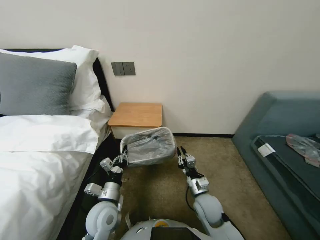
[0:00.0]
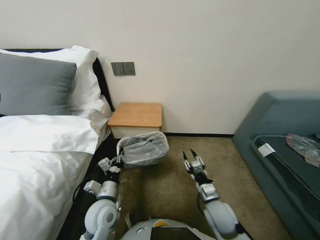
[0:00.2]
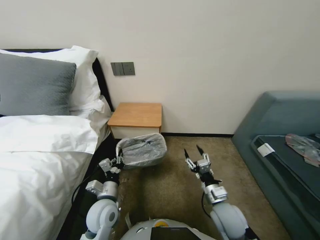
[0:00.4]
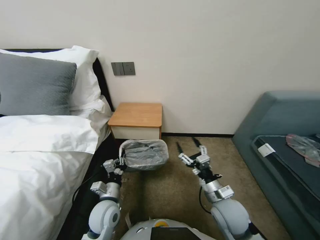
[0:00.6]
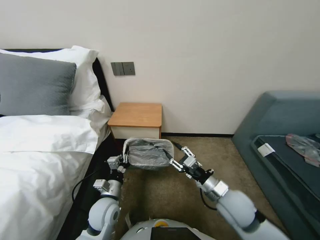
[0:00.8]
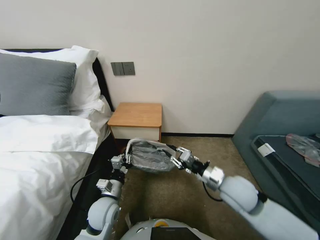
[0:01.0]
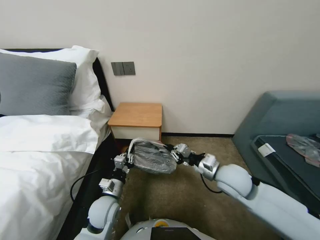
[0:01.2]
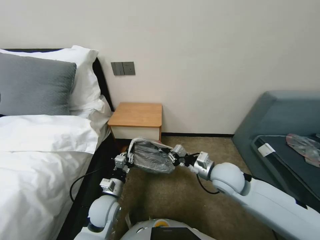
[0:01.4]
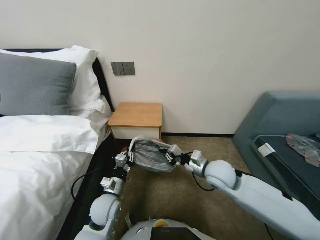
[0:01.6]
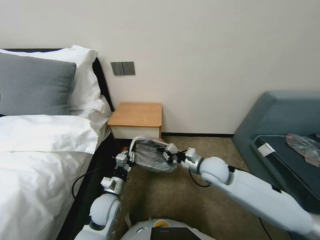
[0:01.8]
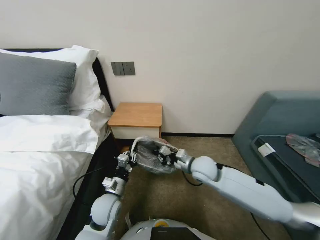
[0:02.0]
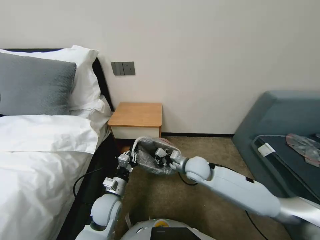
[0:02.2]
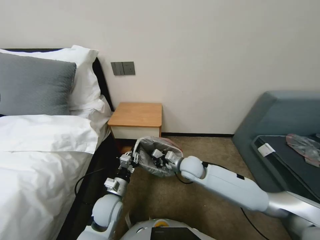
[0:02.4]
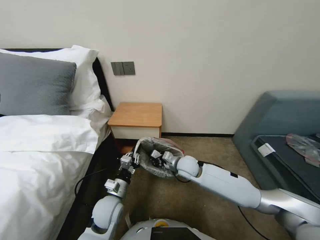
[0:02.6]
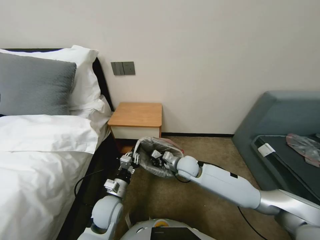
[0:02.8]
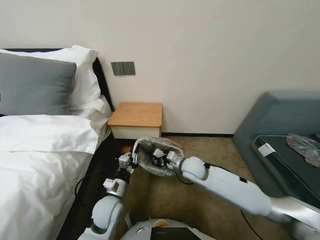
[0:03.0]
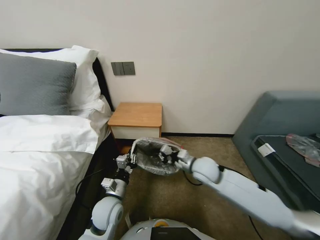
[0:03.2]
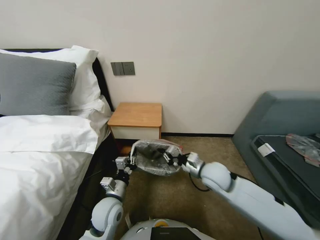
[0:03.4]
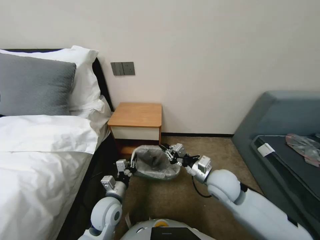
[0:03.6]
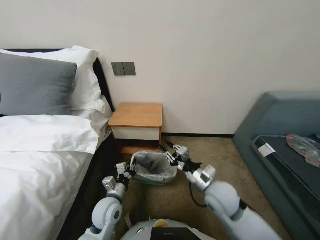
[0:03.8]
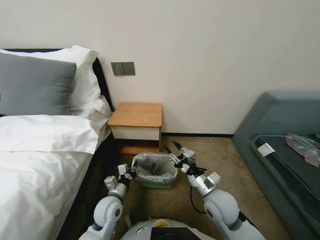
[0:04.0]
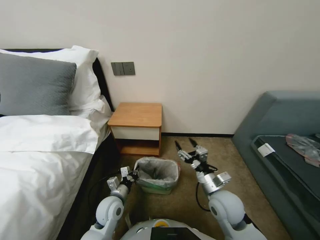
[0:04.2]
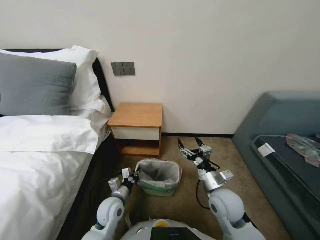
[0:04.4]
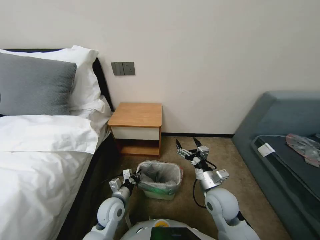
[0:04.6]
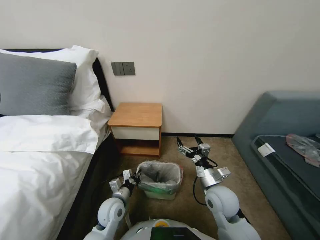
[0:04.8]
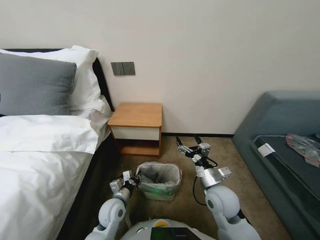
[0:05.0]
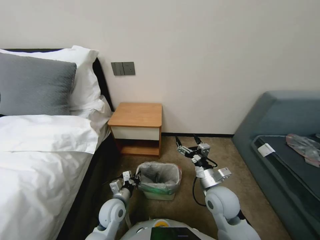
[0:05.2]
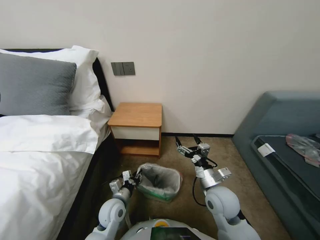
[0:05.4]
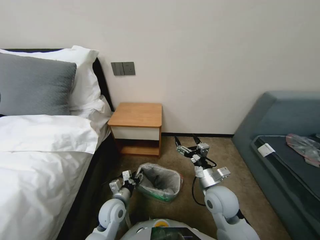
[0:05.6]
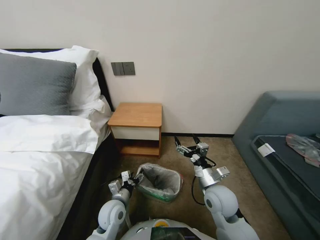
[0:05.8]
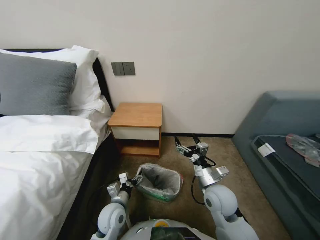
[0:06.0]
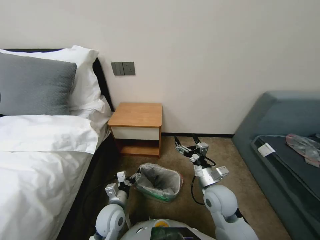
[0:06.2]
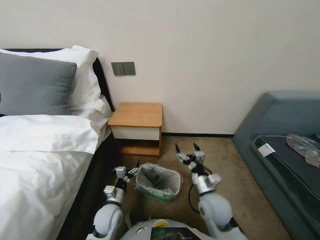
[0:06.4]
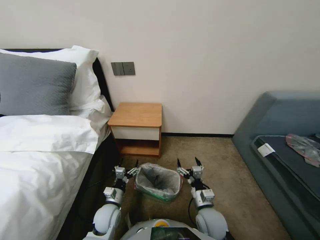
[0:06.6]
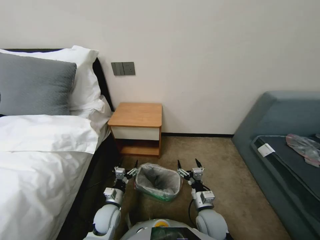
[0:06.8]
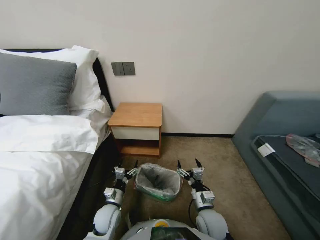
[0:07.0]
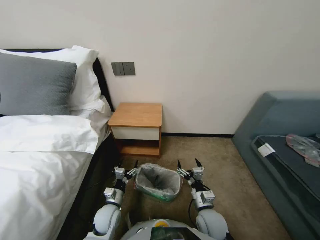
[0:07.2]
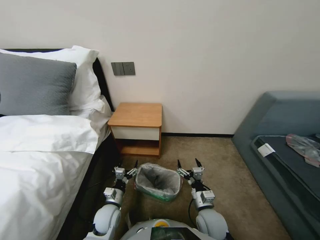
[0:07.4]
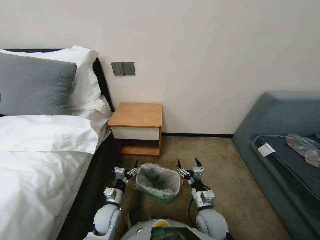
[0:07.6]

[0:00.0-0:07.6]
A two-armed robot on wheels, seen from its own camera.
Task of the whole recording: Pick up the garbage bag from the table and place it over the trash can.
0:00.0 to 0:01.6: The right gripper goes some 15 cm upward, and opens, then closes again.
0:01.6 to 0:03.0: The right gripper shifts some 15 cm to the left, downward and forward.
0:03.0 to 0:04.6: The right gripper is displaced backward and to the right by about 15 cm, and opens its fingers.
0:04.6 to 0:06.0: The left gripper opens its fingers.
0:06.0 to 0:07.6: The right gripper travels downward and backward by approximately 10 cm; the left gripper ends up approximately 5 cm from where it was.

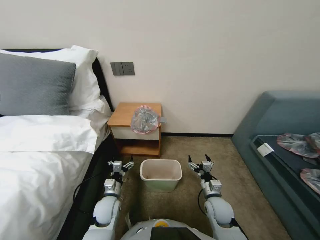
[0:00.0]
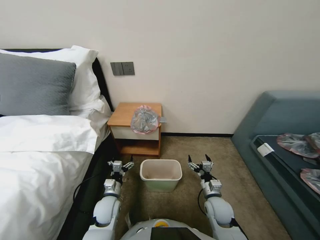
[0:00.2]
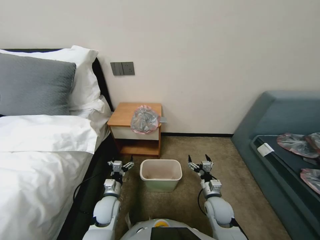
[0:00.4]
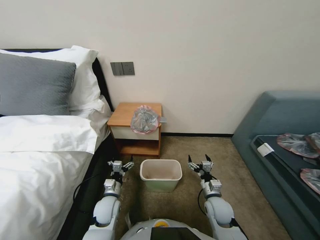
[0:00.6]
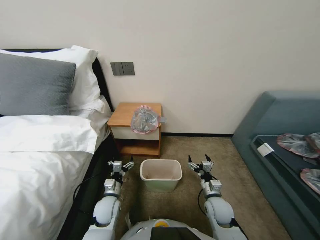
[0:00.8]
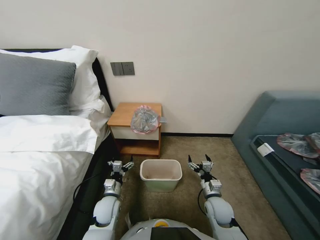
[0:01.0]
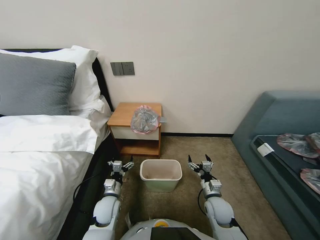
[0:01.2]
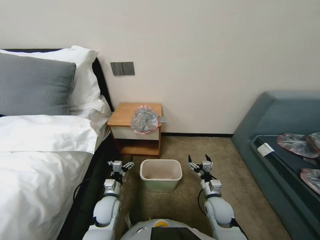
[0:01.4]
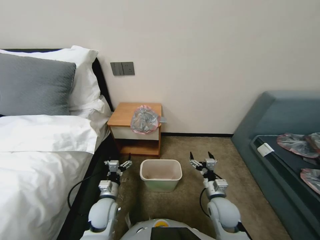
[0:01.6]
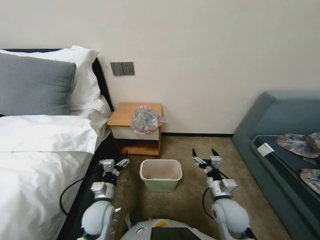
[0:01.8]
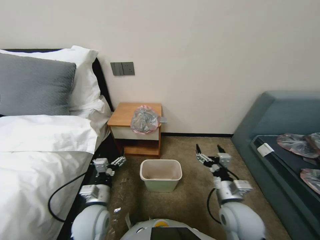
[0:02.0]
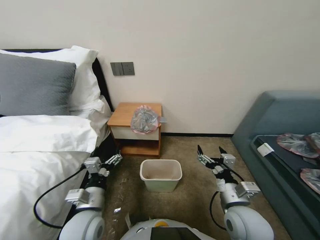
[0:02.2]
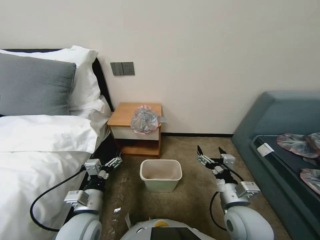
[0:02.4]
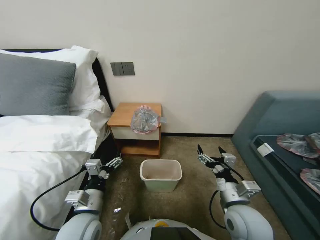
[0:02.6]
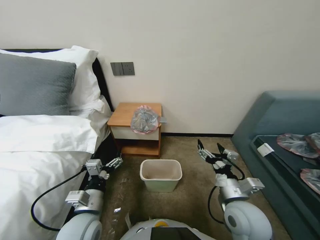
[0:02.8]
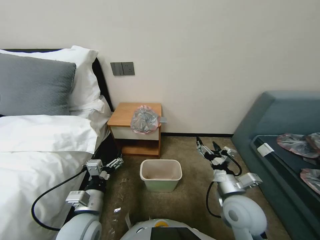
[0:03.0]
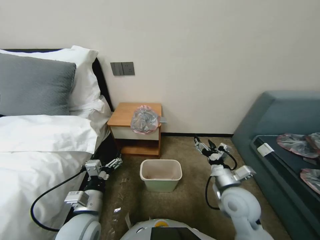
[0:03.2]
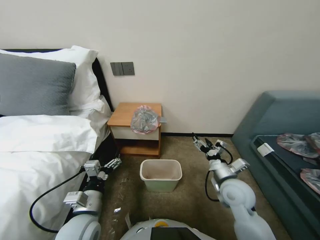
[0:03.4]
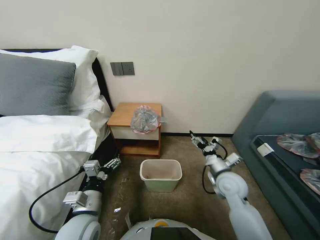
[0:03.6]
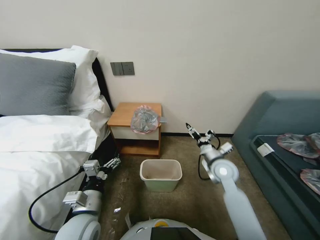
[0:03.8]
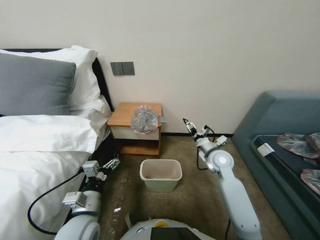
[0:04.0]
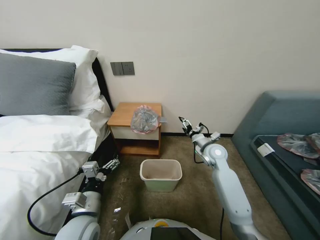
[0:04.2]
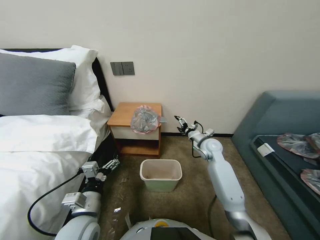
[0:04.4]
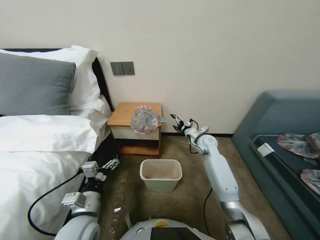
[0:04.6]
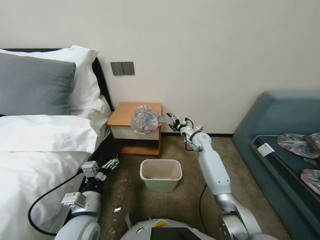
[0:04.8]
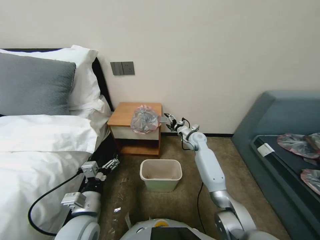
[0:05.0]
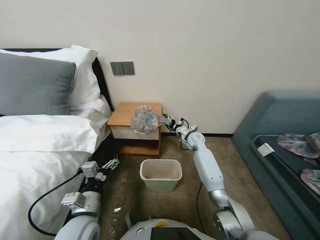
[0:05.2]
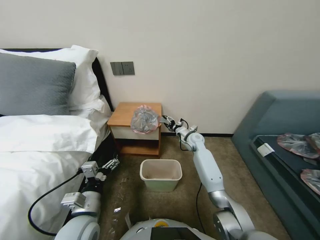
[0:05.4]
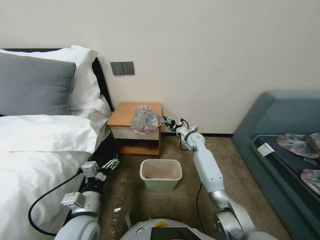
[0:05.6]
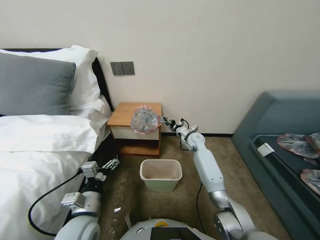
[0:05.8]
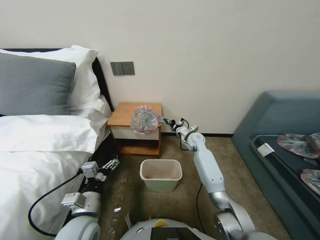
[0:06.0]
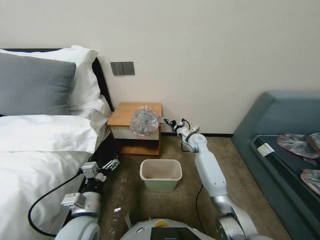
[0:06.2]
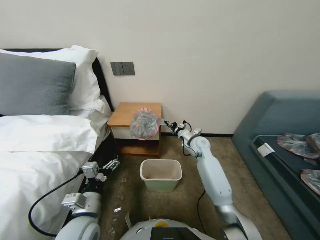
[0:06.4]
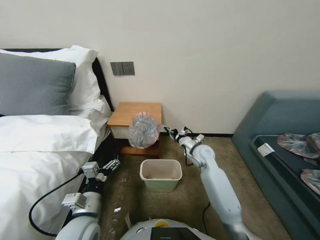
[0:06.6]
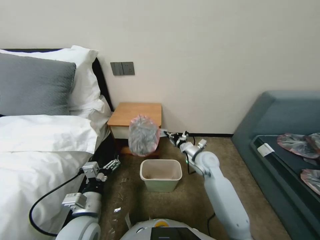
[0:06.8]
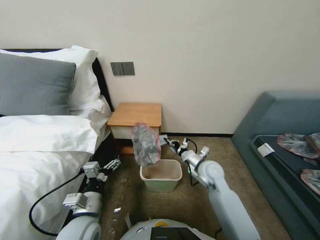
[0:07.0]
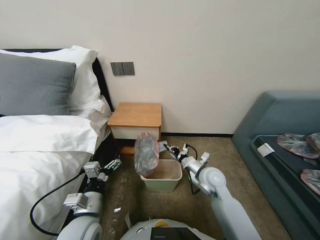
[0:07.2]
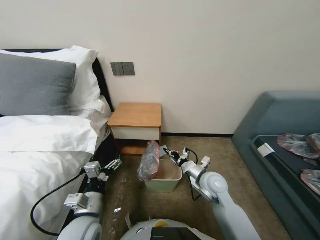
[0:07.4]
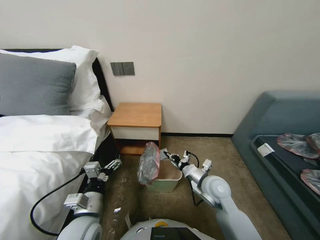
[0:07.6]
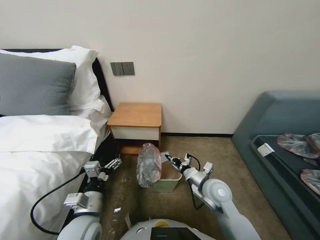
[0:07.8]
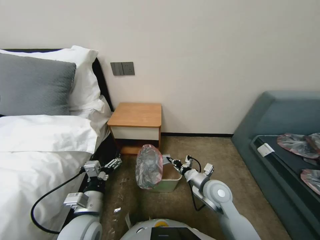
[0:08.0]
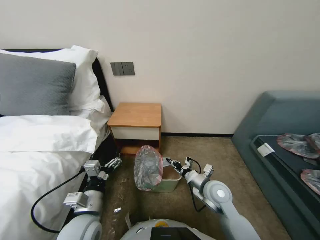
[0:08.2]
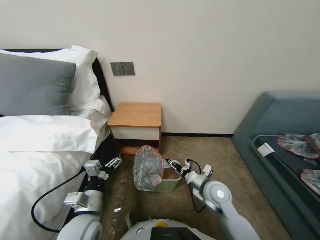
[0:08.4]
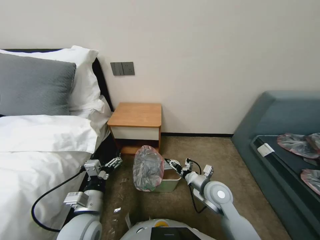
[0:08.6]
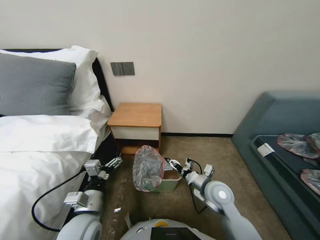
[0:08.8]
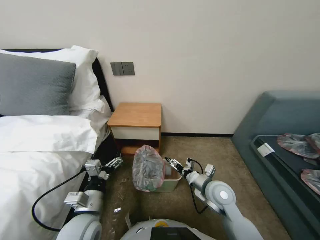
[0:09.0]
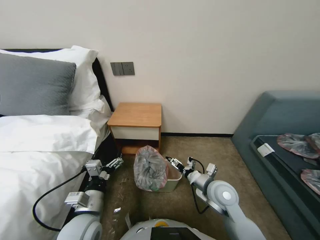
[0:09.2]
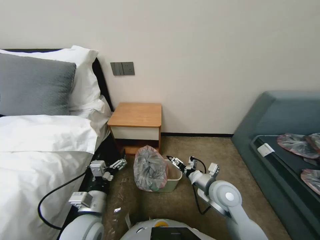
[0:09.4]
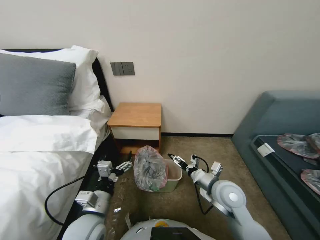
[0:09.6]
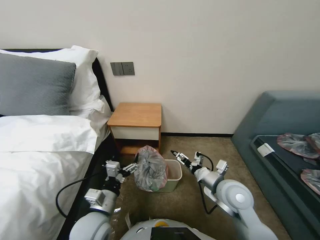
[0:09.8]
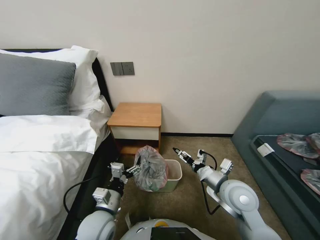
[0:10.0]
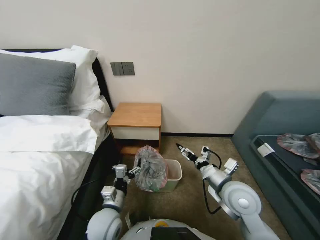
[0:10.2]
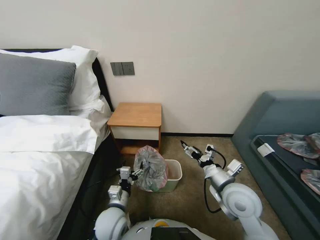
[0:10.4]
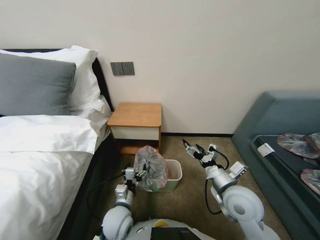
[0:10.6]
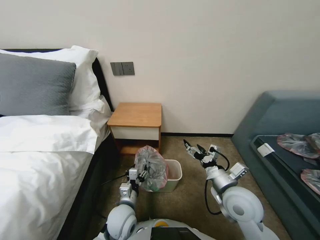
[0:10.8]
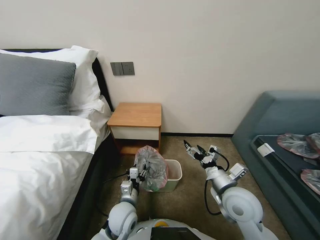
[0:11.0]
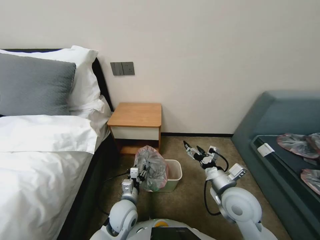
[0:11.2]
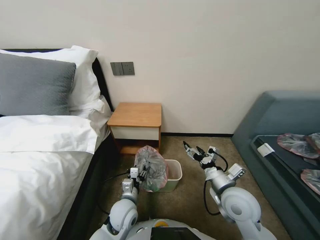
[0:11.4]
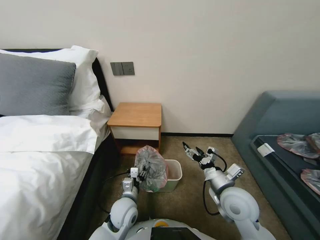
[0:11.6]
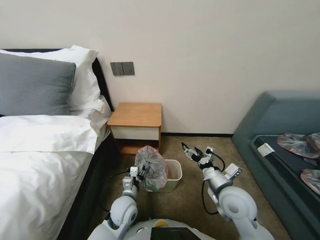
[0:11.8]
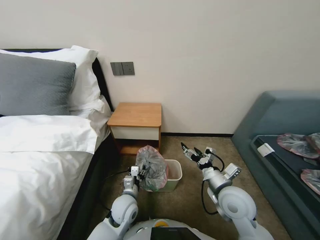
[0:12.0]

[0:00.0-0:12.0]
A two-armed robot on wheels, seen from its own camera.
Task of the whole recording: Pick up the garbage bag from the table and place it over the trash can.
0:01.6 to 0:03.0: The right gripper travels upward by about 15 cm. The left gripper is displaced upward and backward by some 15 cm.
0:03.0 to 0:04.4: The right gripper is displaced forward by approximately 25 cm.
0:04.4 to 0:06.0: The right gripper travels forward by roughly 10 cm, and closes.
0:06.0 to 0:07.6: The right gripper goes approximately 25 cm backward.
0:07.6 to 0:09.0: The right gripper opens up.
0:09.0 to 0:10.4: The left gripper moves downward, roughly 5 cm. The right gripper goes approximately 5 cm upward.
0:10.4 to 0:12.0: The left gripper shifts by approximately 5 cm, and closes up.

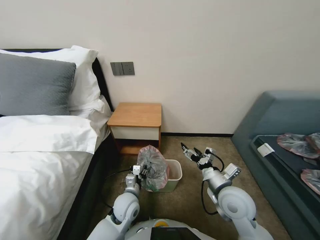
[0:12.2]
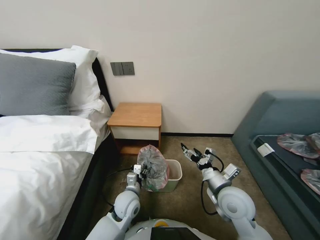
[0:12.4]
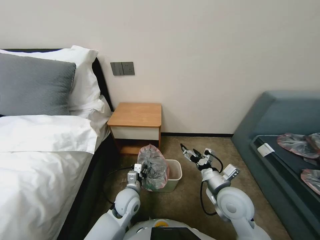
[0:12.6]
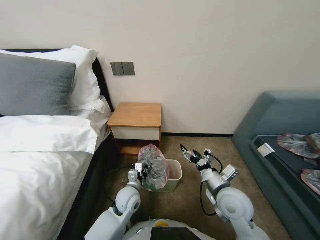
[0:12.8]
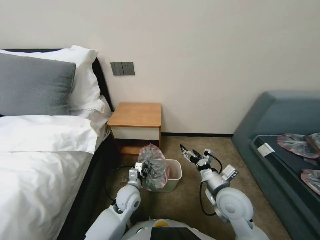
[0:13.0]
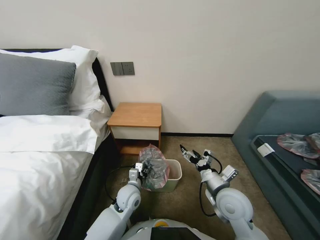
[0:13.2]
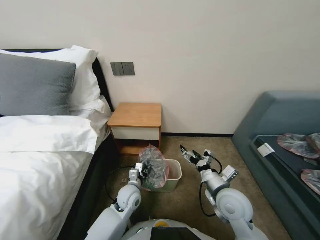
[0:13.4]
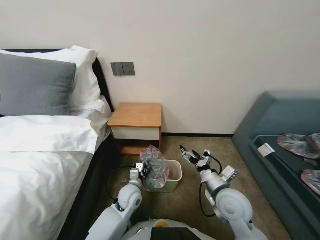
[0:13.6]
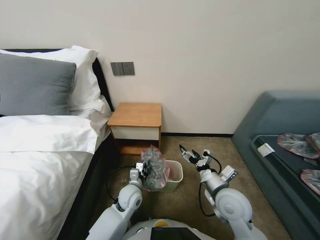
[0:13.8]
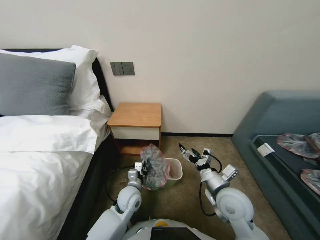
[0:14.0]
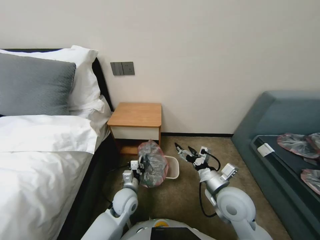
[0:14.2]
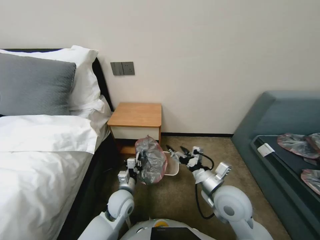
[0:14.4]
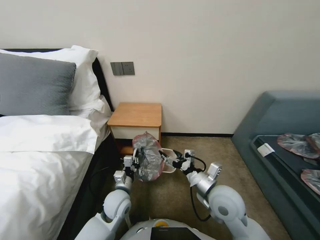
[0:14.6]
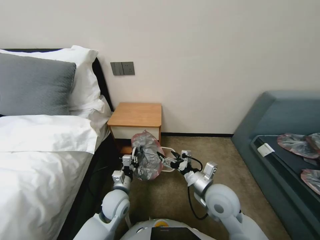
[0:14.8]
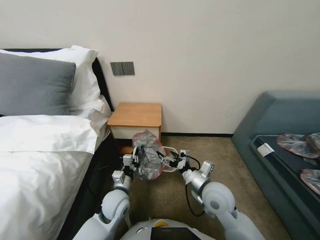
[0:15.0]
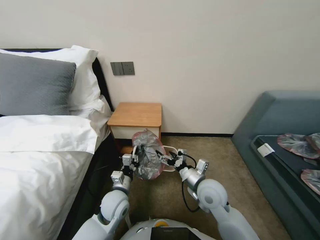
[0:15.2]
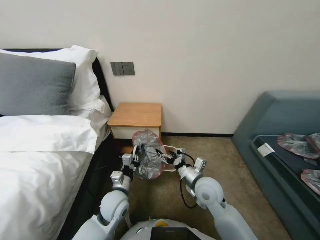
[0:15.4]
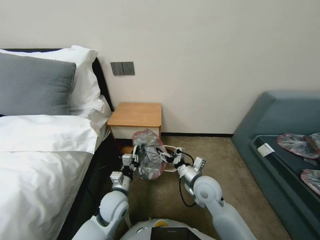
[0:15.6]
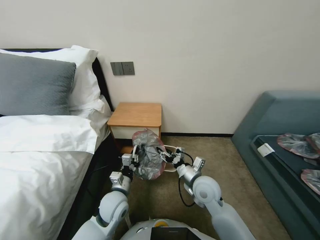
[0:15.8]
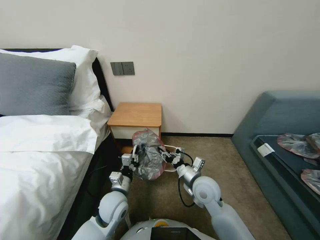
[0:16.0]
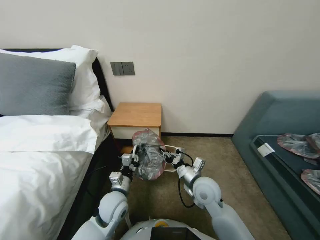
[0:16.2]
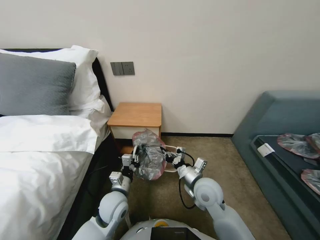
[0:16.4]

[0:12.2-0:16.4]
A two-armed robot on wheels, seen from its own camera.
Task of the whole recording: Pick up the garbage bag from the table and place it over the trash can.
0:12.2 to 0:13.6: The grippers make only small movements.
0:13.6 to 0:15.0: The left gripper moves about 5 cm, and closes up.
0:15.0 to 0:16.4: The right gripper closes up.
